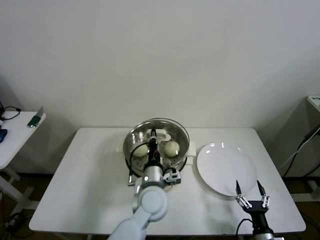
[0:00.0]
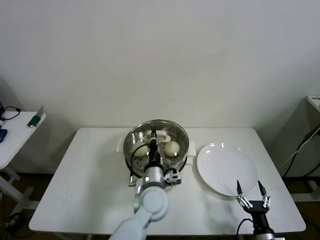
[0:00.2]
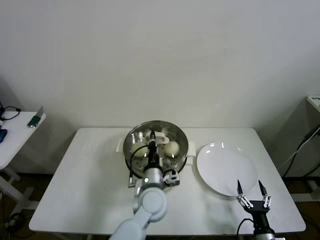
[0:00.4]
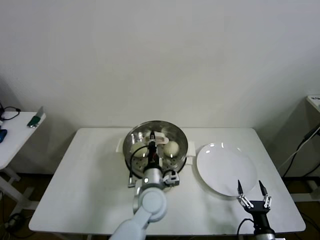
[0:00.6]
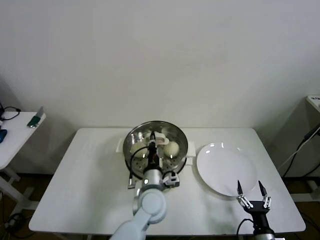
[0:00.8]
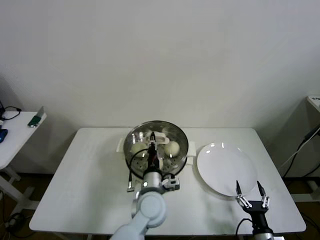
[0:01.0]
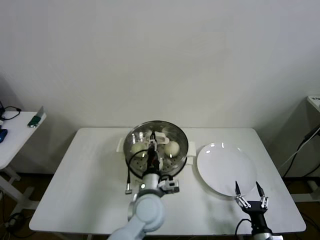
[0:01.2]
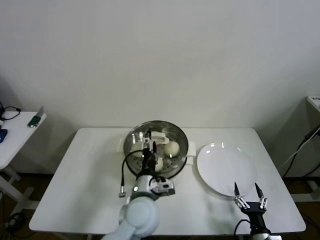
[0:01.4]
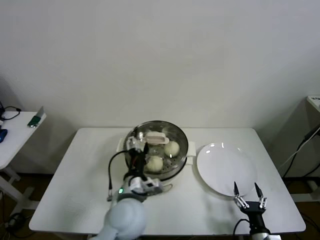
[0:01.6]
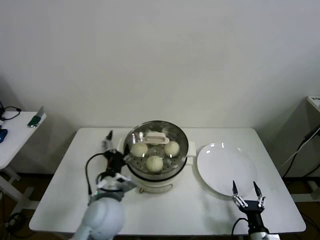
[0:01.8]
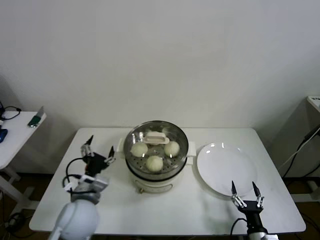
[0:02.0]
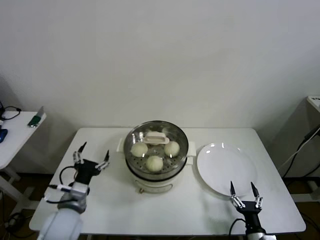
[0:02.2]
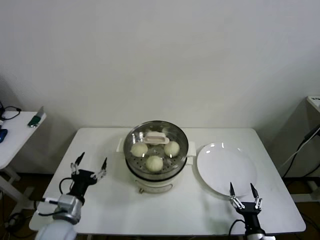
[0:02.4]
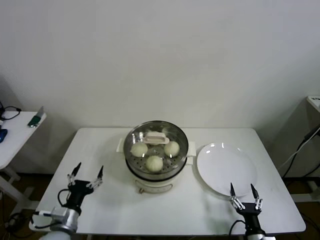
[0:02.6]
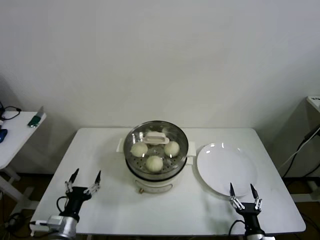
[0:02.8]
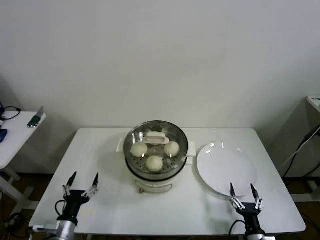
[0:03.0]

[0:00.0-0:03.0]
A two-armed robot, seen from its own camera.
0:00.0 to 0:01.6: The left gripper moves about 5 cm, and opens its fingers.
0:01.6 to 0:03.0: The left gripper is displaced to the left and downward by roughly 30 cm.

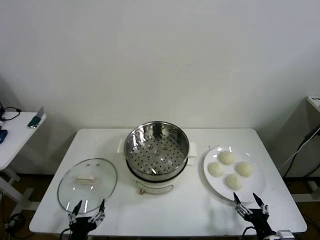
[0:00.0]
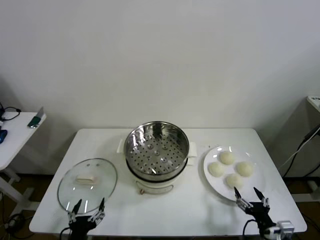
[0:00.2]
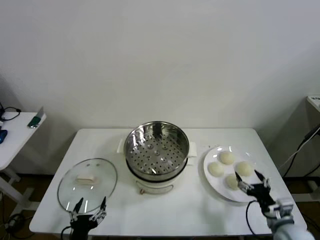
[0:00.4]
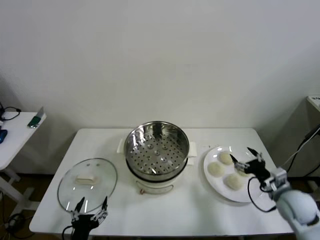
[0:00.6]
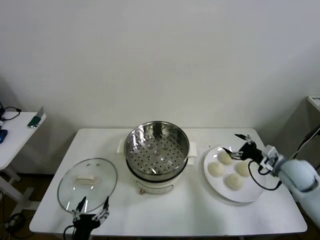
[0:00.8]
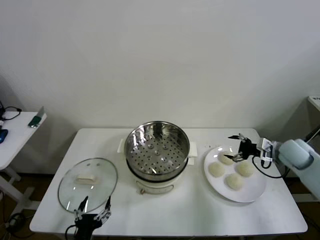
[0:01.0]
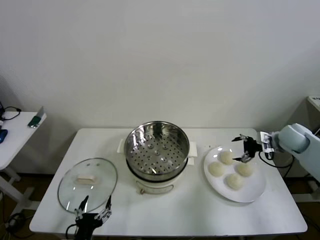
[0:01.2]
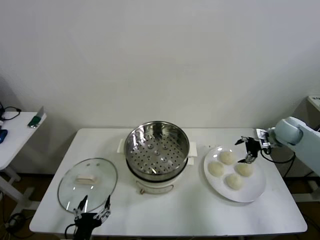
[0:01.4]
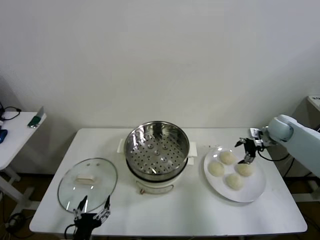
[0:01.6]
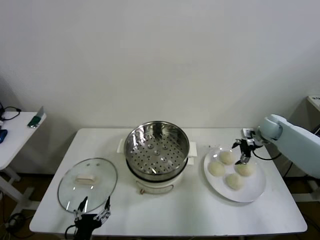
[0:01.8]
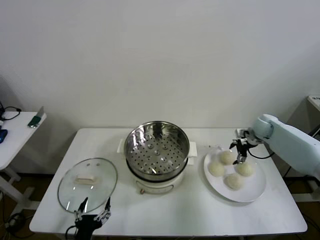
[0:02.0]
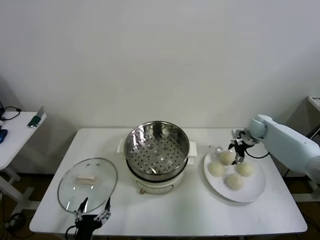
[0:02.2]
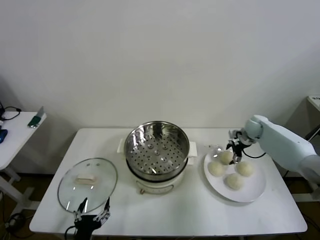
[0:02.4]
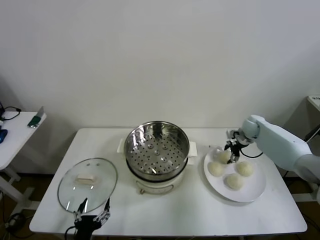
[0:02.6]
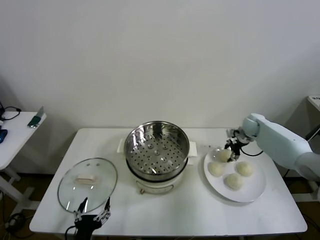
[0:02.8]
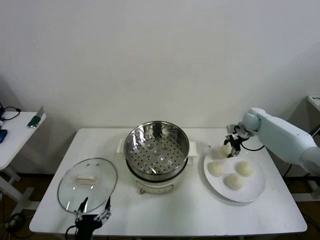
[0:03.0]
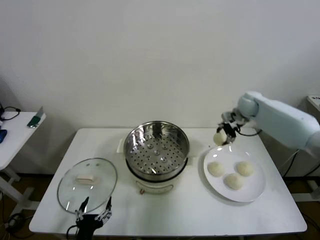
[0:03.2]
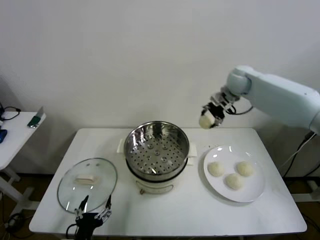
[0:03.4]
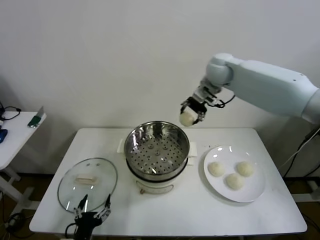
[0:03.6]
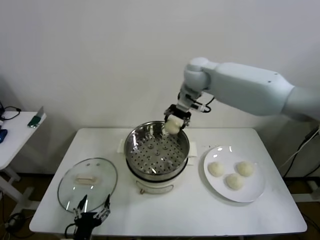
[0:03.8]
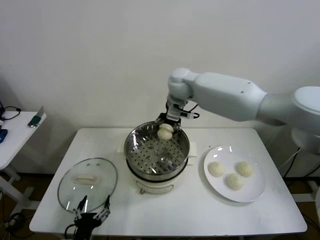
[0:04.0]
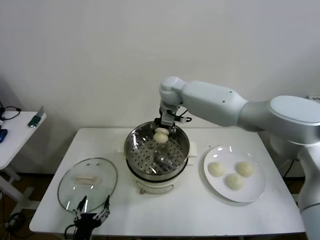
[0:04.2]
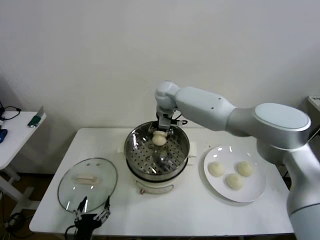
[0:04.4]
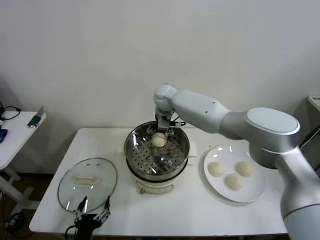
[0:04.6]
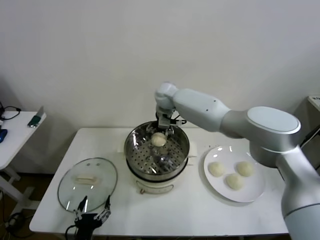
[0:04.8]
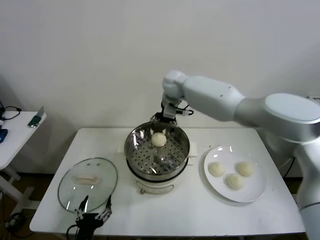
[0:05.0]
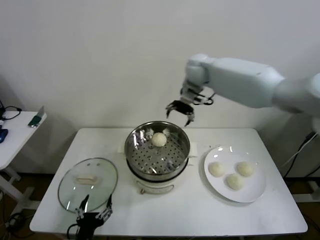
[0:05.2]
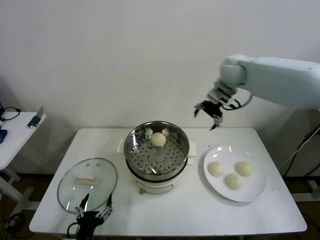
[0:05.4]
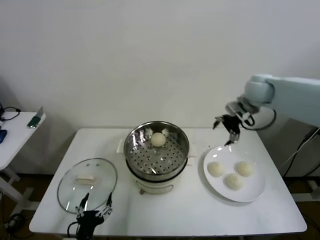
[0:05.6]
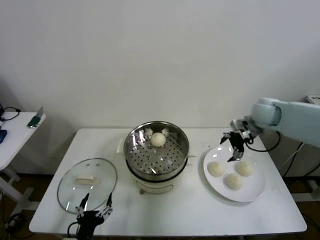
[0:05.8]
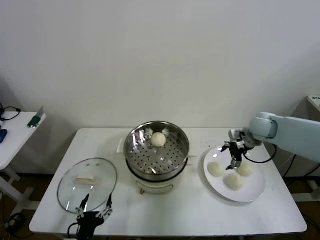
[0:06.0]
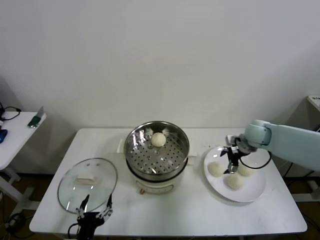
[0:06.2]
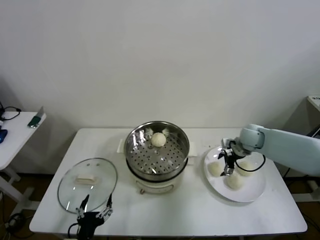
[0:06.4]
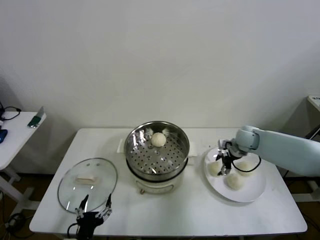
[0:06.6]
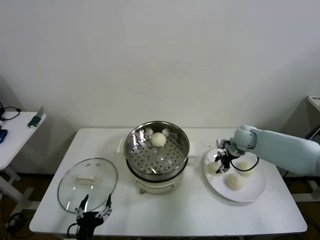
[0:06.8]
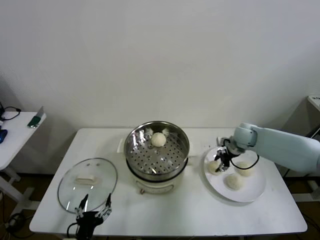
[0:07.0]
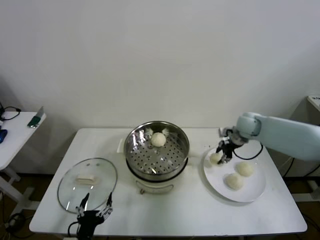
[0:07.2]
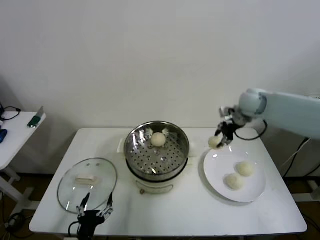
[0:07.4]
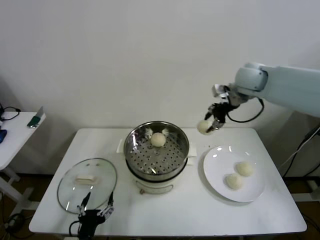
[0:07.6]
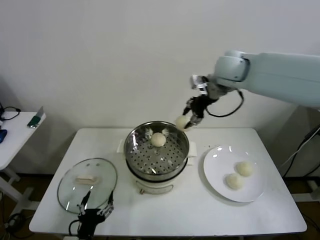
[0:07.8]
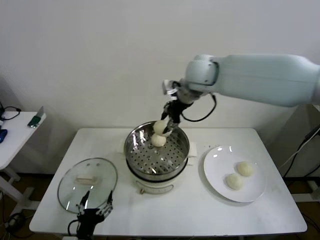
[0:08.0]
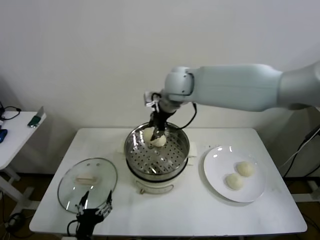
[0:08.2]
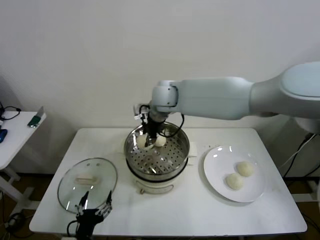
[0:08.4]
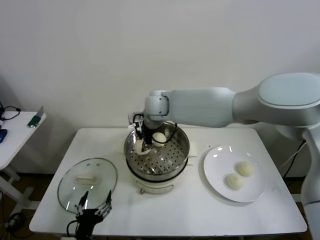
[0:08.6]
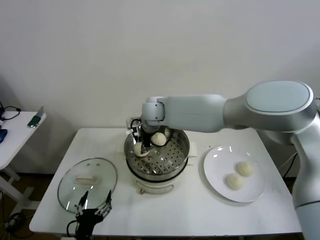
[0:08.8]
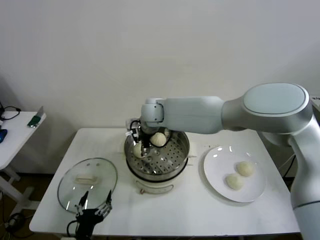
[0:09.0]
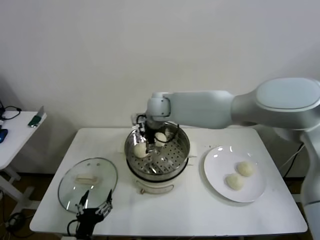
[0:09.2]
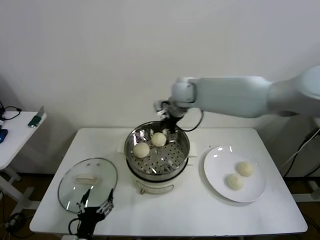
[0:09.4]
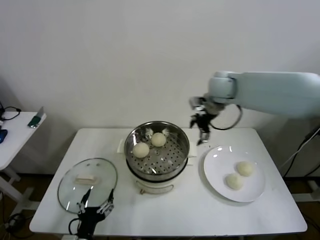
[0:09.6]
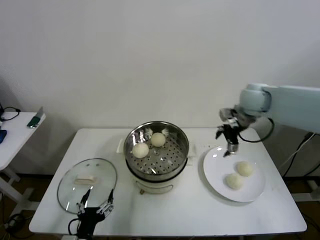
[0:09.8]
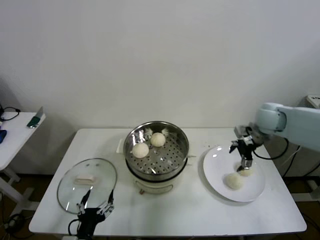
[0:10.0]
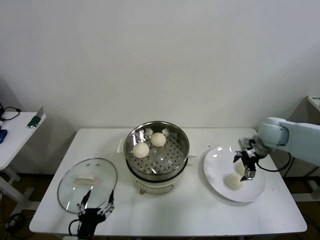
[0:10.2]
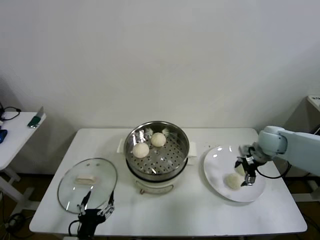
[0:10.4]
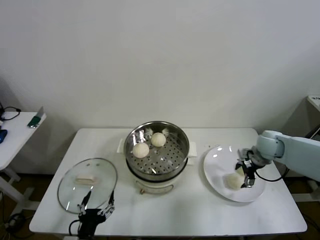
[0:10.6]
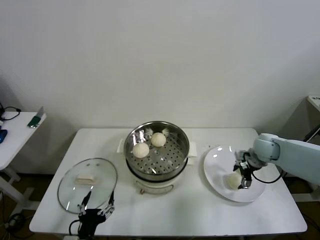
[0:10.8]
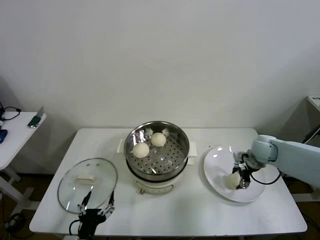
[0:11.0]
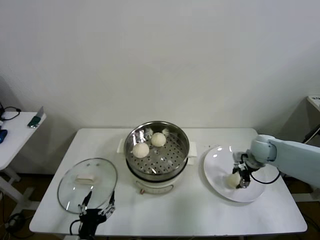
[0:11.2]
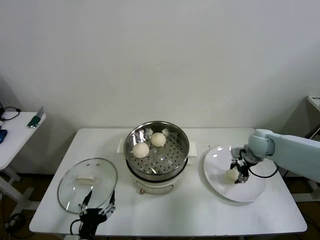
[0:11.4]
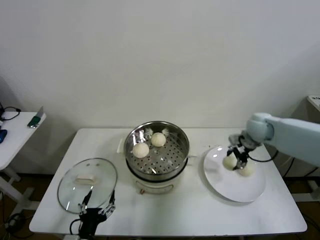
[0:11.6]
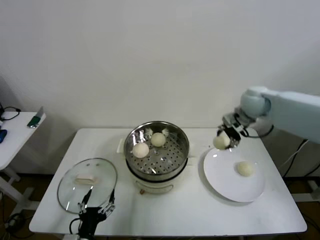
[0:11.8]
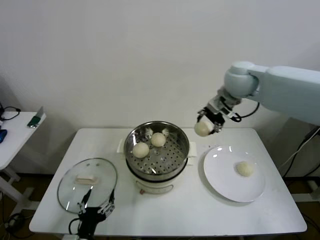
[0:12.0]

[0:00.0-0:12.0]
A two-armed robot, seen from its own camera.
Step, 0:00.0 to 0:02.6: Grasp the baozi in the plate with right gripper.
Step, 0:02.8 to 0:04.6: Place the baozi on the steamer with right gripper.
Step, 0:04.8 to 0:06.6: Grasp the baozi in the plate with right gripper.
Step, 0:06.8 to 0:09.0: Place the baozi on the steamer with right gripper.
Step, 0:09.2 to 0:11.2: Grasp the baozi in the plate with right gripper.
0:01.6 to 0:03.0: The right gripper moves to the left and forward, about 10 cm, and closes its fingers.
0:03.0 to 0:04.4: The right gripper travels to the left by approximately 35 cm.
0:04.4 to 0:06.0: The right gripper heads to the right, covering roughly 35 cm, and opens its fingers.
0:06.0 to 0:07.6: The right gripper shifts approximately 25 cm upward and to the left, and closes up.
0:07.6 to 0:09.0: The right gripper travels to the left and downward by some 30 cm, and opens up.
0:09.0 to 0:10.4: The right gripper moves to the right, roughly 40 cm.
0:10.4 to 0:12.0: The right gripper travels upward and to the left by some 30 cm, and closes.

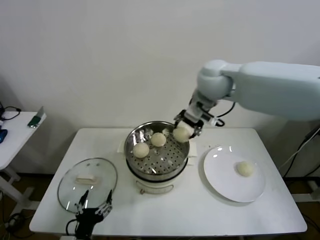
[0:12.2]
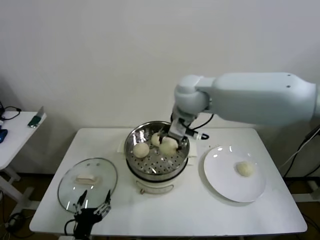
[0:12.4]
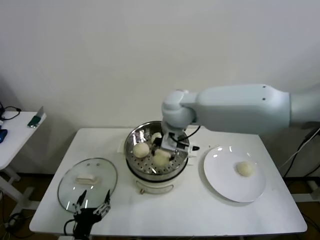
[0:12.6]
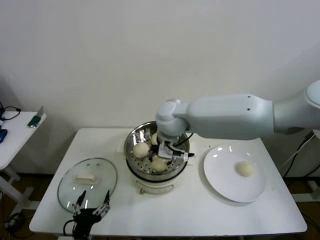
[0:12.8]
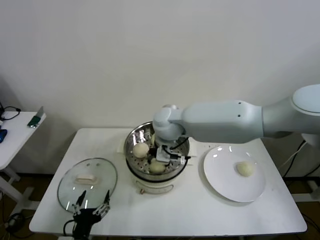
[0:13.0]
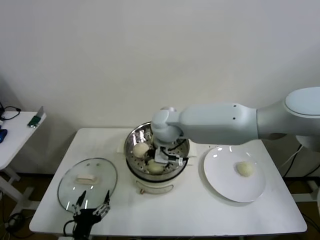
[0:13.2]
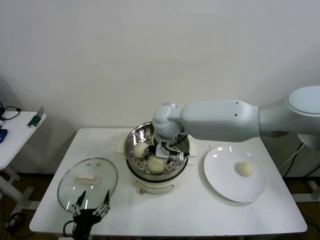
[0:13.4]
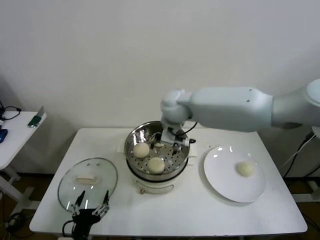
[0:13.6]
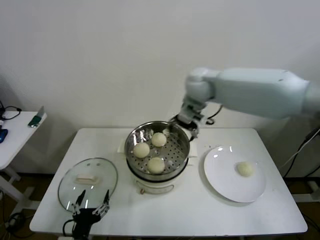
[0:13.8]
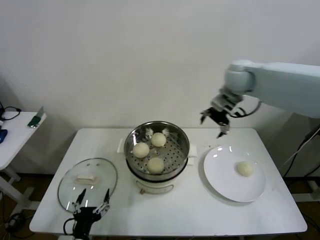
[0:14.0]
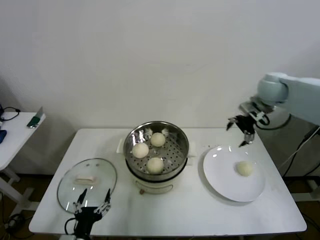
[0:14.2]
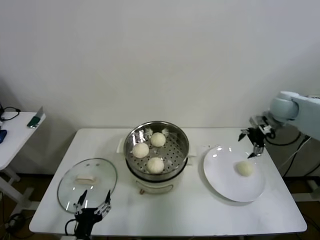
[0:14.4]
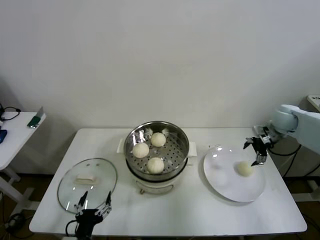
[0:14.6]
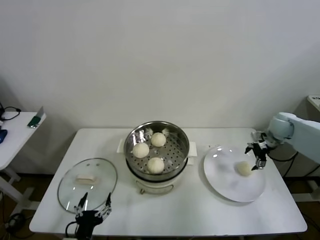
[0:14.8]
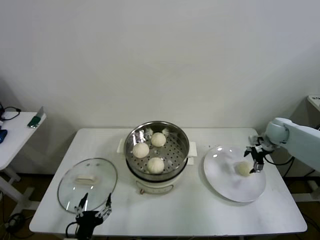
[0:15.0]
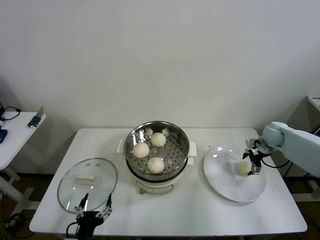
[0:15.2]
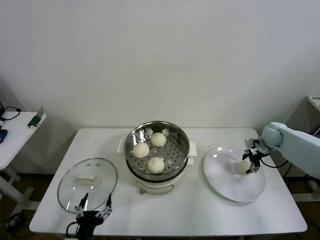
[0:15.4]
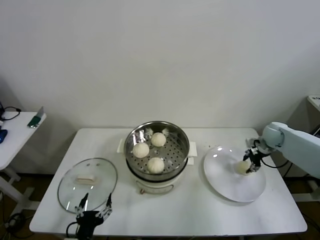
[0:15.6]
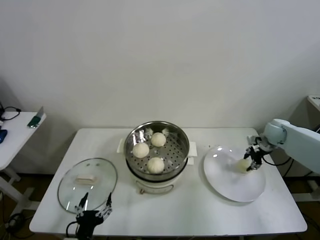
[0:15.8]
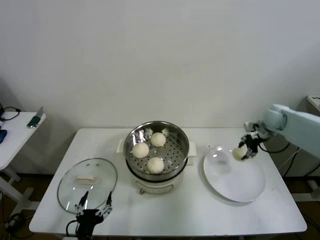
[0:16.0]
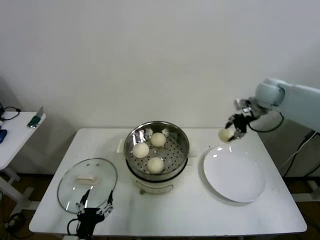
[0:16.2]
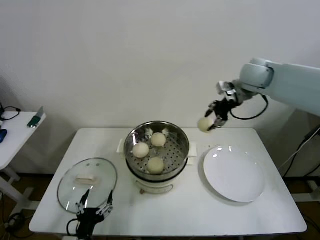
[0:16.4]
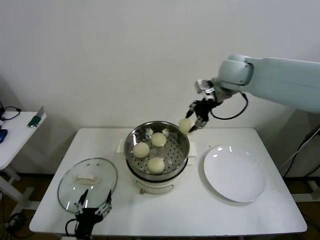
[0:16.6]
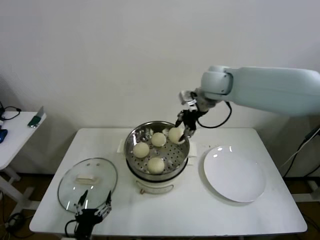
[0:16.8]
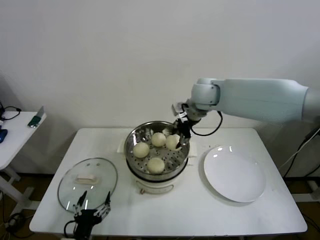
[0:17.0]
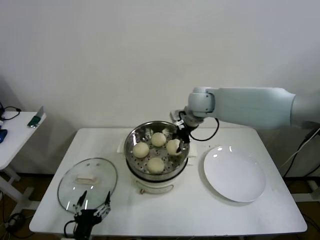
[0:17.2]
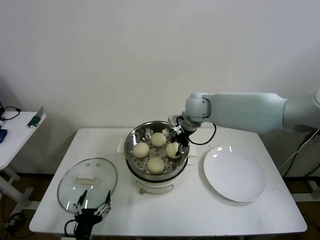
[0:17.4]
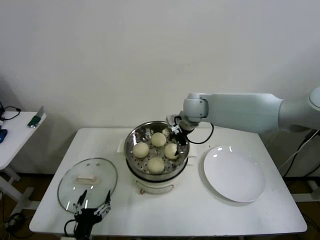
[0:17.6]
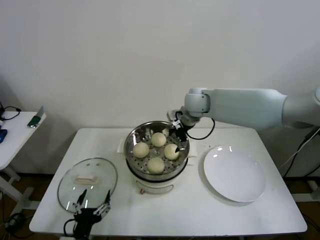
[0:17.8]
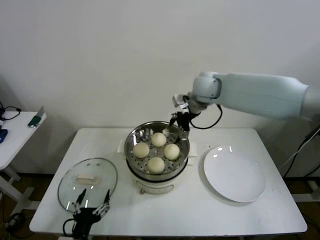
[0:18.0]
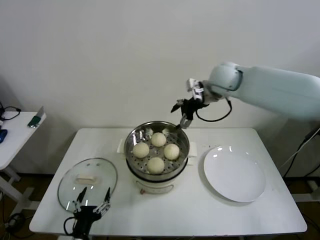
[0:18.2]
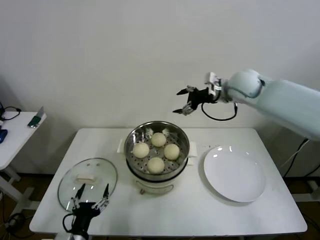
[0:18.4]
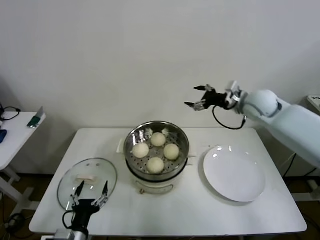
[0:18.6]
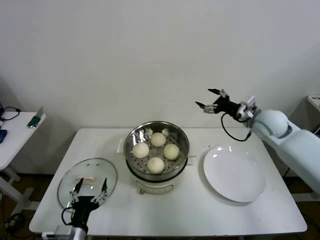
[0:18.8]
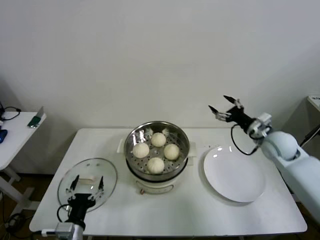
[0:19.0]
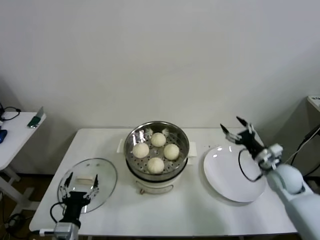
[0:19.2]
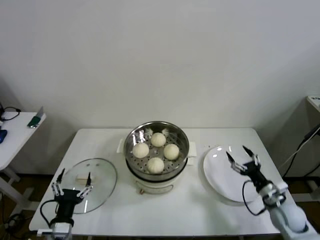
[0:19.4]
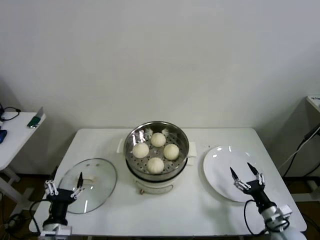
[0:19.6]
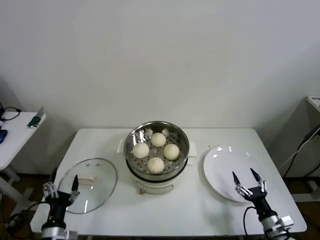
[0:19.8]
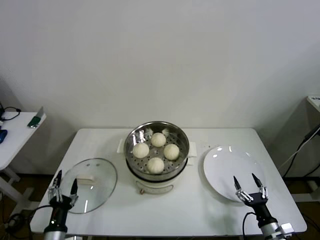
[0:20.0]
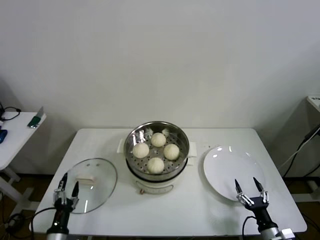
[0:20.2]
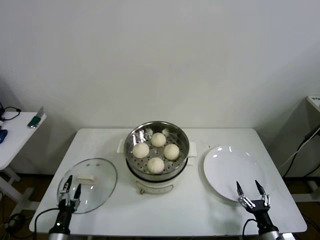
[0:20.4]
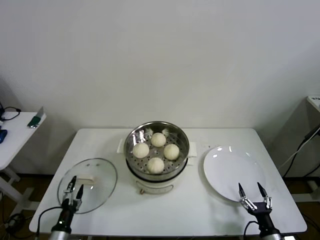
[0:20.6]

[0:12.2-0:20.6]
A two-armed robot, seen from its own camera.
Step, 0:13.4 to 0:15.4: Grasp the baozi in the plate with right gripper.
Step, 0:15.8 to 0:17.4: Place the baozi on the steamer with right gripper.
0:12.2 to 0:13.6: The right gripper is displaced downward and to the left by roughly 10 cm, and opens its fingers.
0:13.6 to 0:15.0: The right gripper travels to the right and downward by roughly 40 cm.
0:15.0 to 0:16.4: The right gripper shifts roughly 30 cm upward and to the left, and closes up.
0:16.4 to 0:17.8: The right gripper is displaced to the left and downward by about 15 cm, and opens.
0:17.8 to 0:19.2: The right gripper is displaced to the right, downward and backward by about 40 cm.
0:19.2 to 0:20.6: The left gripper travels downward and to the left by roughly 15 cm. Meanwhile the right gripper travels backward and downward by roughly 30 cm.
